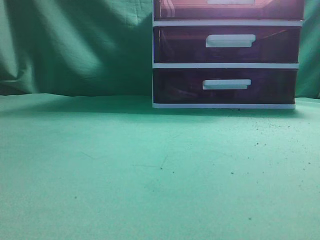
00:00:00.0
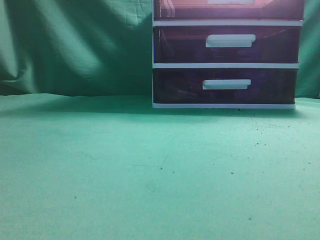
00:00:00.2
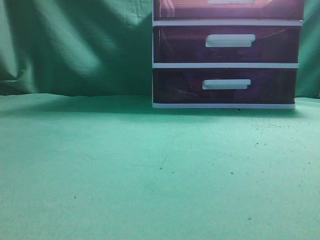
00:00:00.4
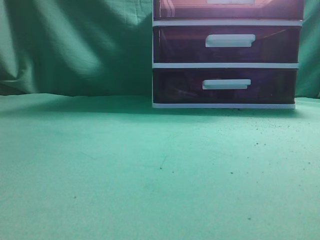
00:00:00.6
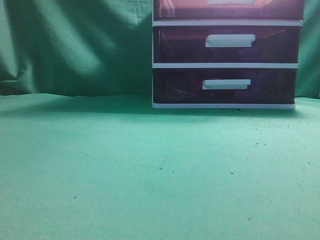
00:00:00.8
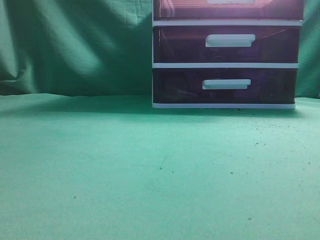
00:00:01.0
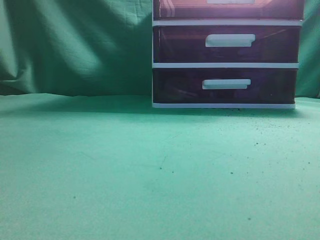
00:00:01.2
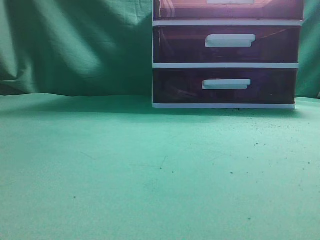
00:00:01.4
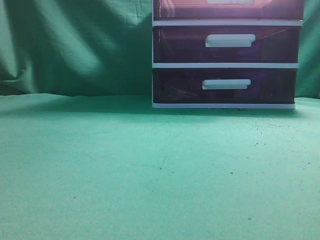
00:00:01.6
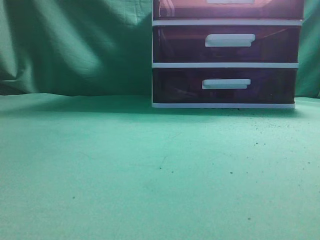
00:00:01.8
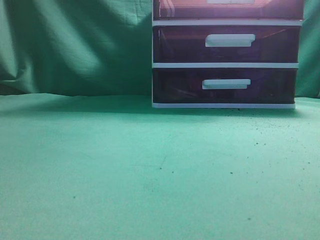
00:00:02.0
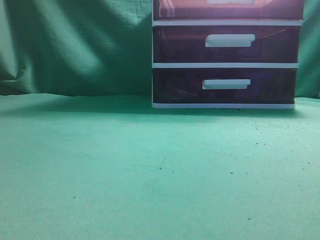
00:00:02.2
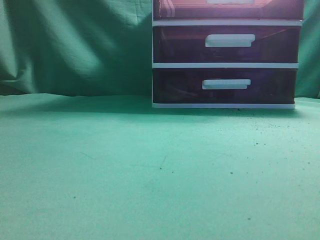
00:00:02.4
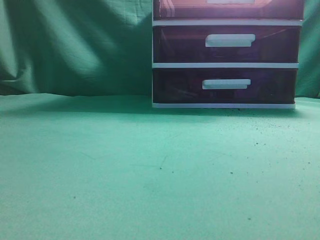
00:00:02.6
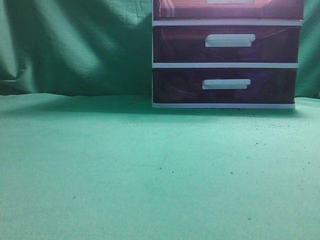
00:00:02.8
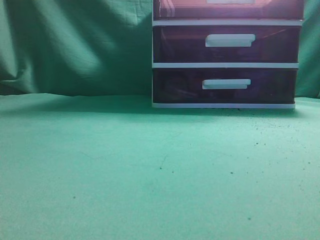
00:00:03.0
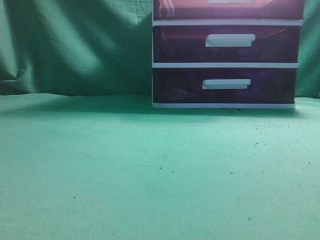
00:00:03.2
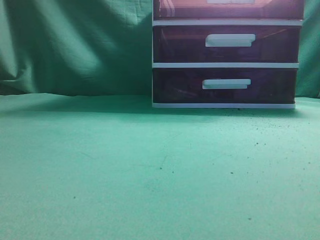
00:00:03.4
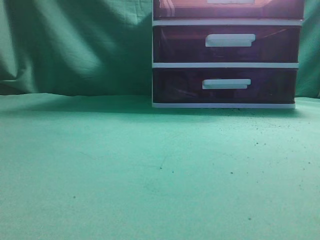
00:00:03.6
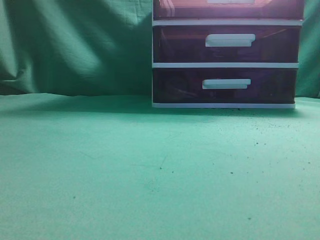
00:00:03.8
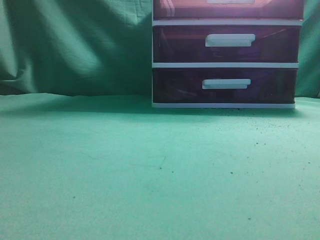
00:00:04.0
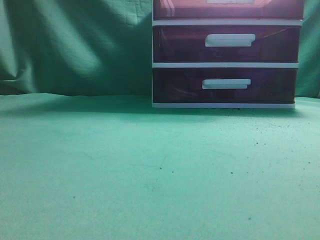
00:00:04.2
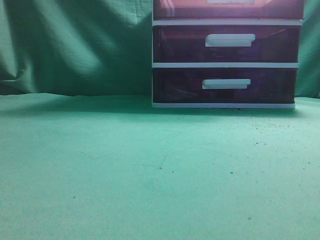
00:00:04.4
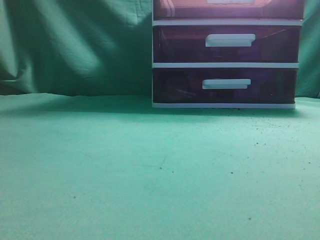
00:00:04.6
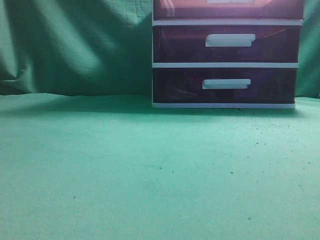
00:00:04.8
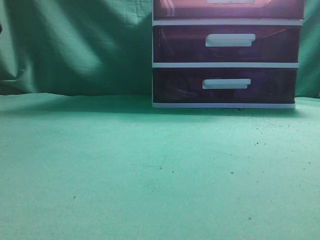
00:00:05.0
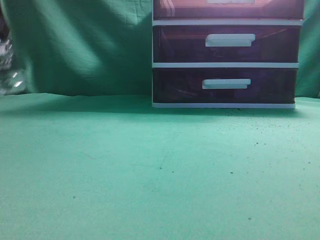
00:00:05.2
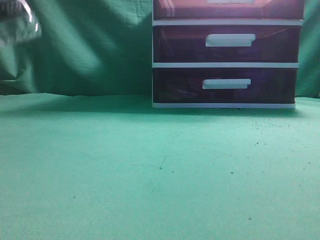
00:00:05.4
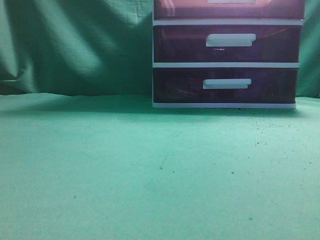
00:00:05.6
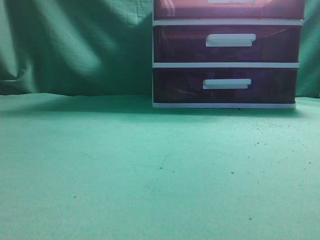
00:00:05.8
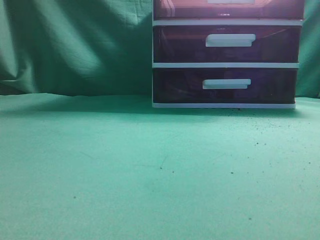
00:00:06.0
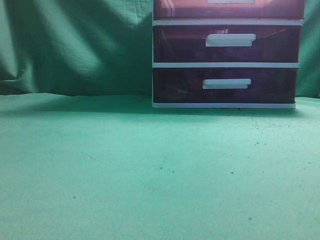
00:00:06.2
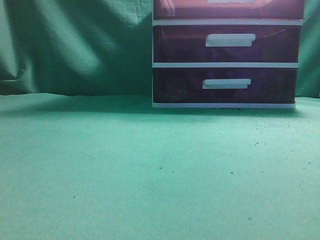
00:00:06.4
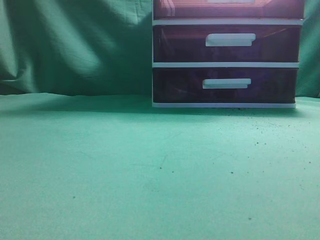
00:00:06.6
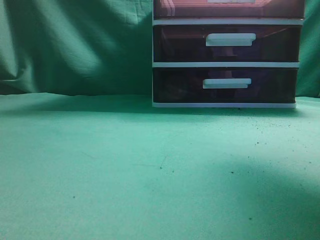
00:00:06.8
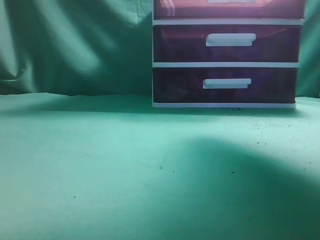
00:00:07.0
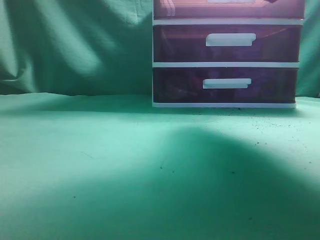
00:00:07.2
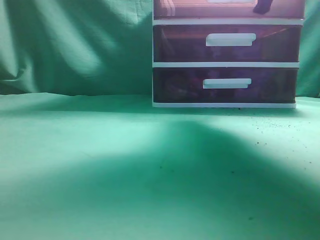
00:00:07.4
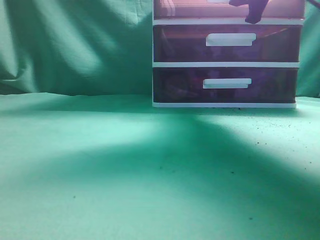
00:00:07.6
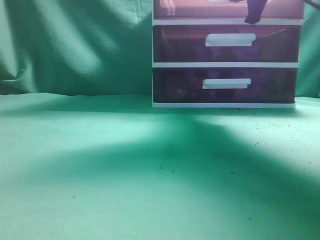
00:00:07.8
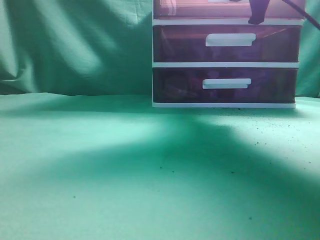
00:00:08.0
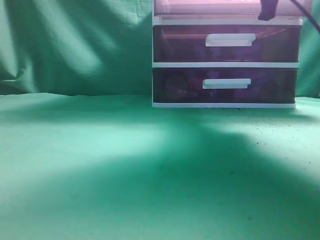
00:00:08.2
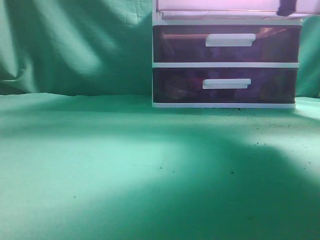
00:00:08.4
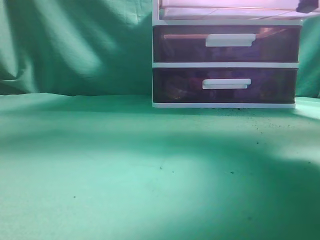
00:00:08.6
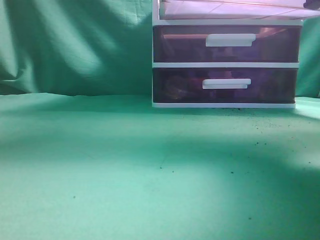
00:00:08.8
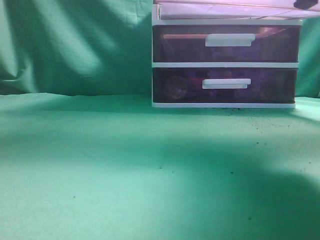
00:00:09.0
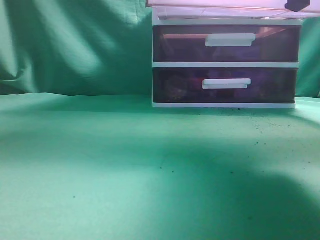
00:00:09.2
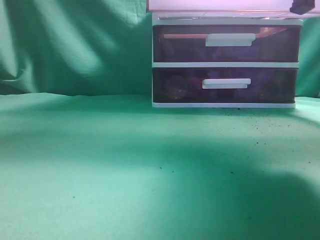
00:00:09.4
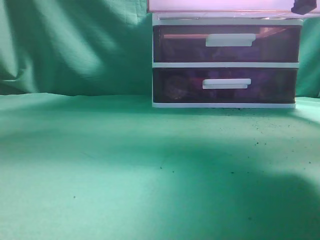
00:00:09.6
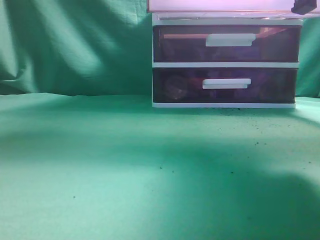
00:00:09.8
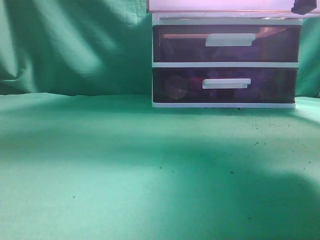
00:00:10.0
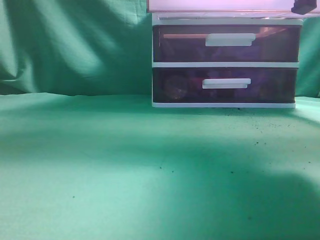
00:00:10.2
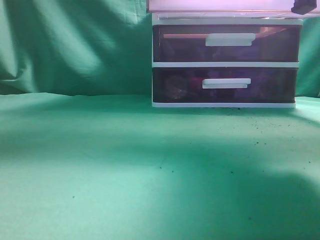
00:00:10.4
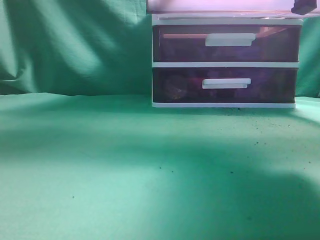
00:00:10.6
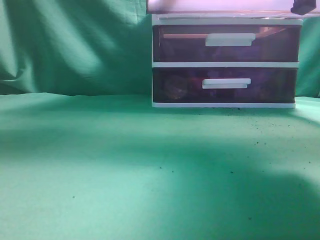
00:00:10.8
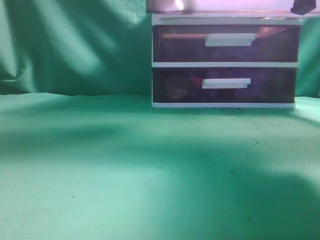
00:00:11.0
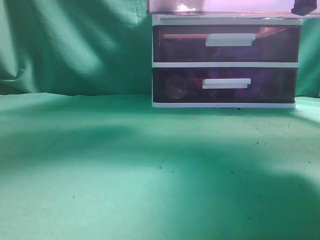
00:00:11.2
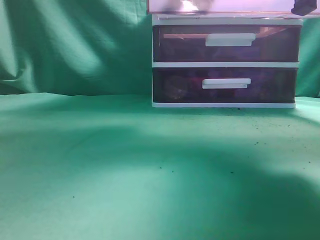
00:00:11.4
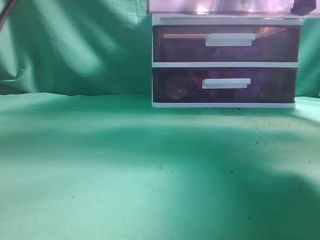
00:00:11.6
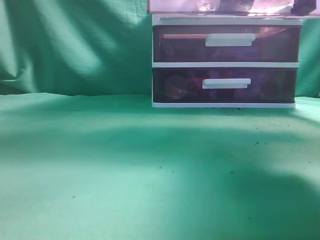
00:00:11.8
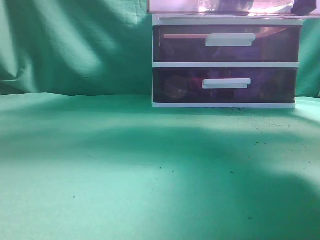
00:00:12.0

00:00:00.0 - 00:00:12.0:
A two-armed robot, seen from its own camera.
Task of the whole recording: place the water bottle into the drawer.
Step, 00:00:00.0 - 00:00:09.2: Open the drawer.
Step, 00:00:09.4 - 00:00:12.0: Place the water bottle inside the drawer.
00:00:06.0 - 00:00:07.6: The left gripper changes place by roughly 5 cm, while the right gripper goes some 35 cm forward, and opens its fingers.
00:00:07.6 - 00:00:09.0: The right gripper shifts some 15 cm backward.
00:00:09.0 - 00:00:10.4: The left gripper travels forward, to the right and upward by roughly 20 cm.
00:00:10.4 - 00:00:12.0: The left gripper shifts roughly 10 cm to the right, and opens, then closes again.

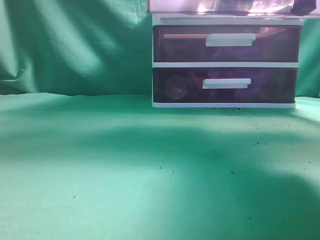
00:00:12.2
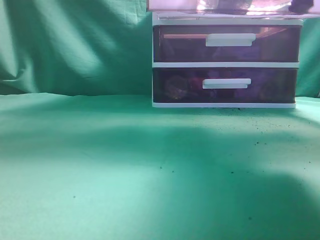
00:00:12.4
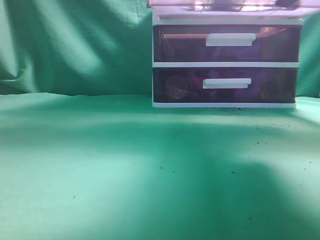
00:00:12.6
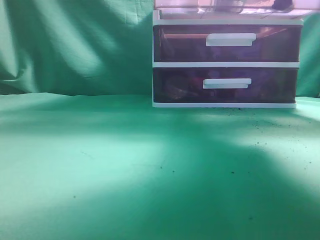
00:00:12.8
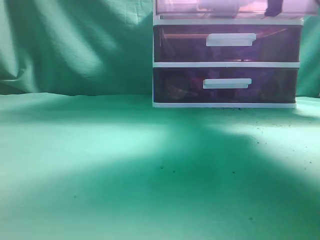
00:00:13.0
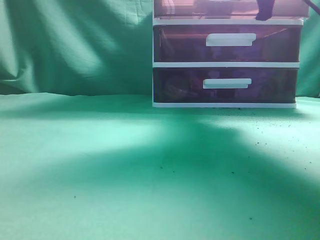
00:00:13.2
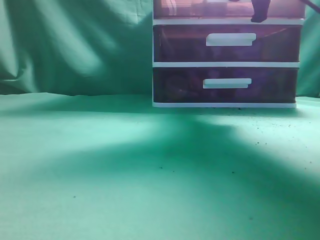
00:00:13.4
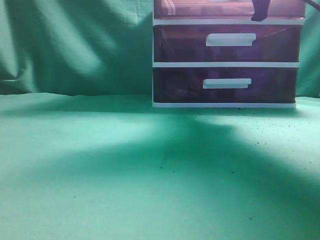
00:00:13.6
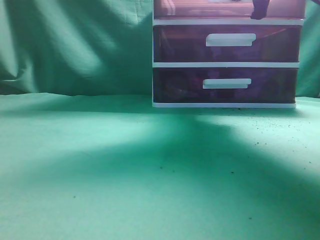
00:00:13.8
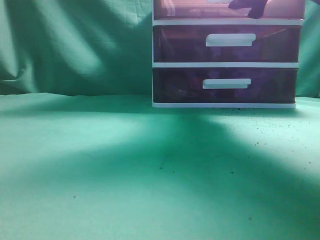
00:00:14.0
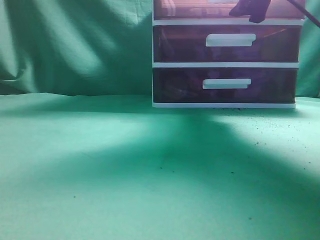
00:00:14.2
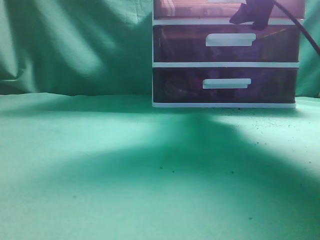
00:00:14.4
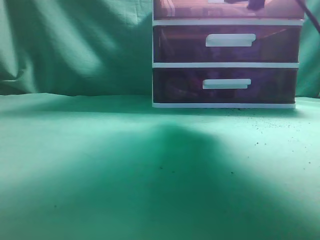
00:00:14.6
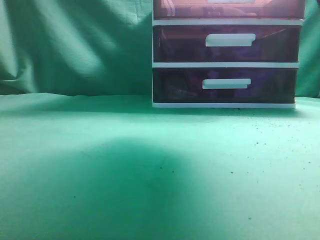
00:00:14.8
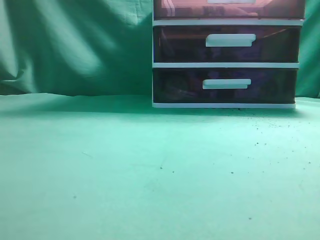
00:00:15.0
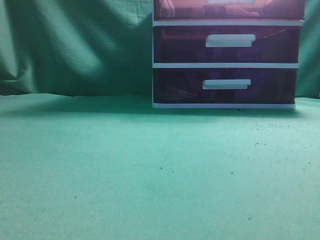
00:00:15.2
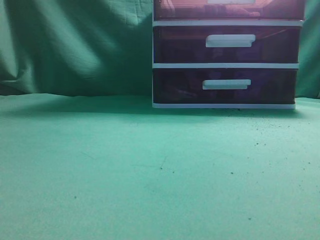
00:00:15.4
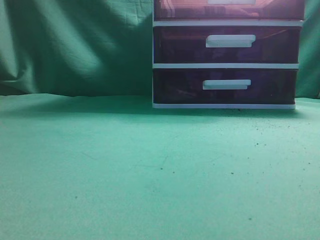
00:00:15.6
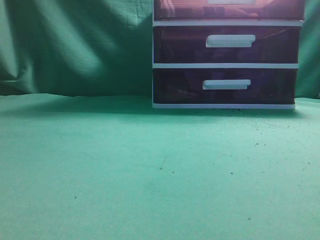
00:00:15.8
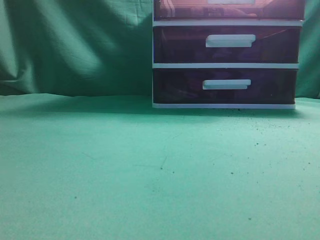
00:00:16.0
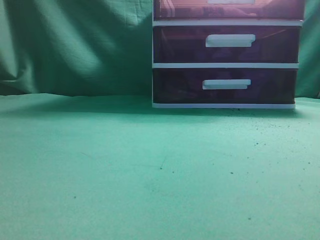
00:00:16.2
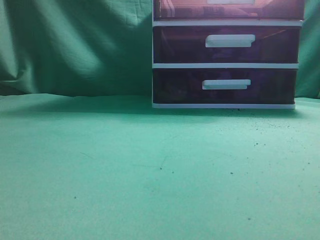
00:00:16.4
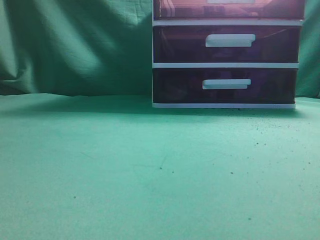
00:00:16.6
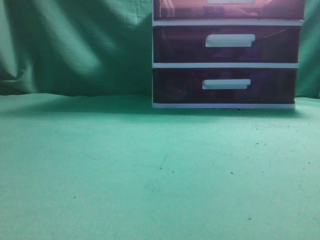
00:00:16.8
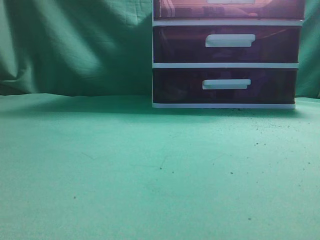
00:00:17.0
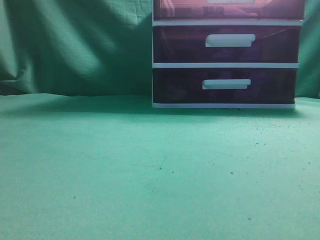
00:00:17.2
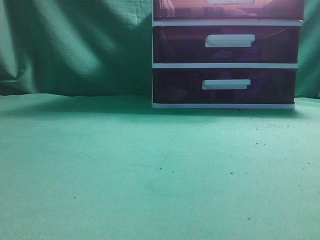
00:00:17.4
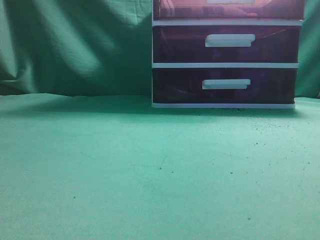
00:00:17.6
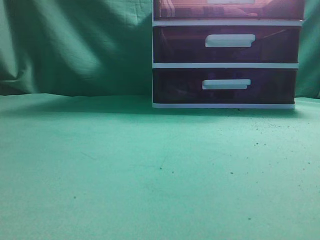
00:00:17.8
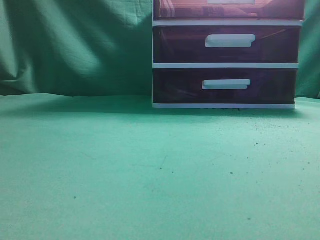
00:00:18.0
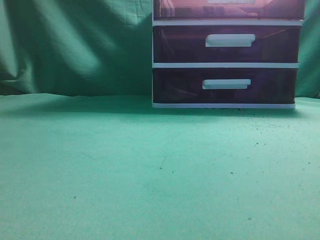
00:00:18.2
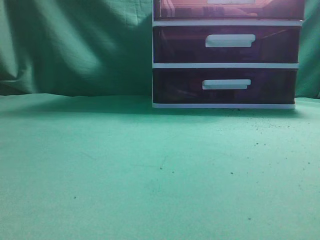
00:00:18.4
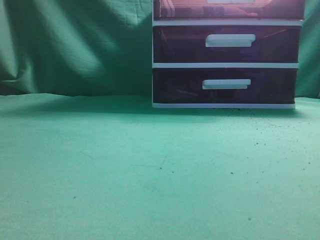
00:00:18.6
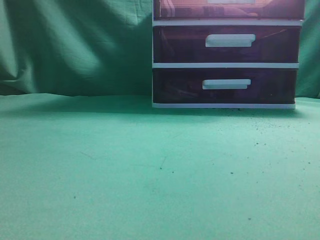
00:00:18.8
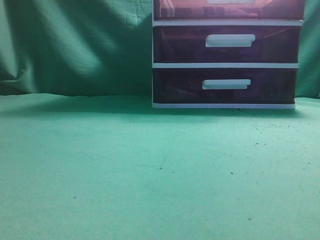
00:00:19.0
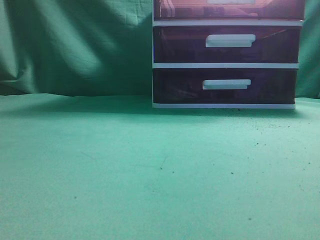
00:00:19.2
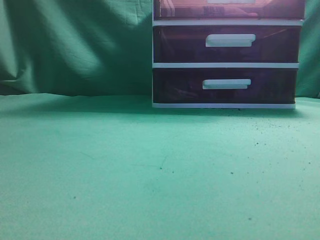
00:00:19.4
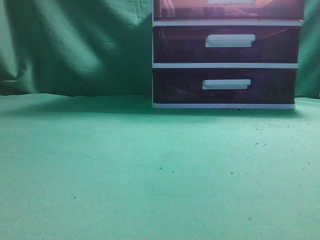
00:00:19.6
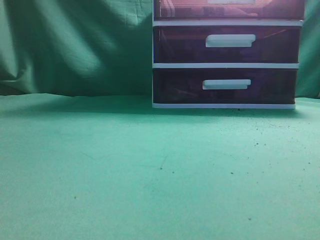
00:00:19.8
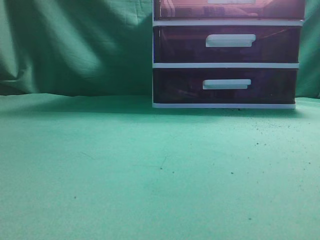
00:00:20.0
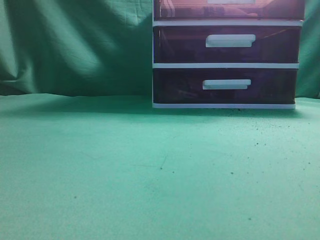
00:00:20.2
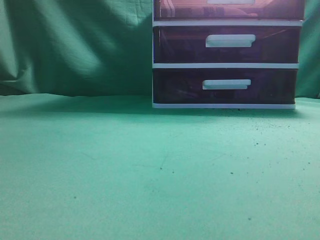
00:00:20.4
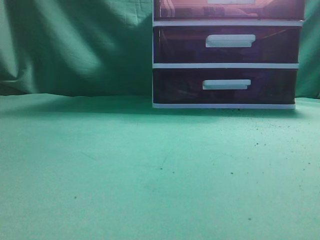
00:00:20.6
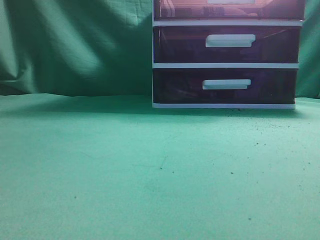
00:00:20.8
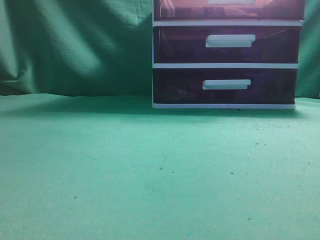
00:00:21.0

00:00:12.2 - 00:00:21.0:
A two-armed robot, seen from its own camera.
Task of the whole recording: place the water bottle into the drawer.
Step, 00:00:12.2 - 00:00:14.0: Close the drawer.
00:00:12.2 - 00:00:13.6: The right gripper travels forward by about 15 cm; the left gripper shifts approximately 20 cm backward, to the left and downward.
00:00:13.6 - 00:00:15.2: The right gripper moves backward and upward, approximately 20 cm, and opens, then closes once more; the left gripper goes about 15 cm backward, upward and to the left.
